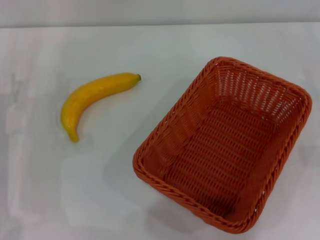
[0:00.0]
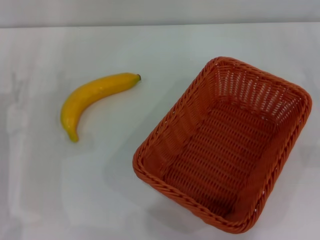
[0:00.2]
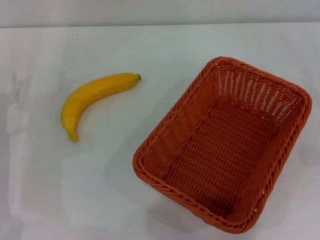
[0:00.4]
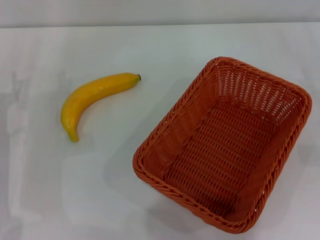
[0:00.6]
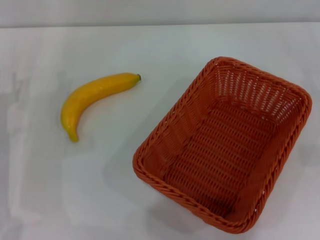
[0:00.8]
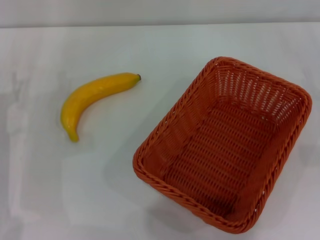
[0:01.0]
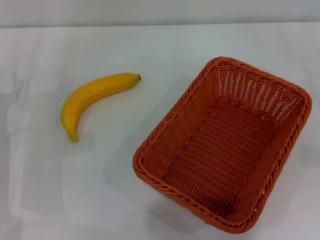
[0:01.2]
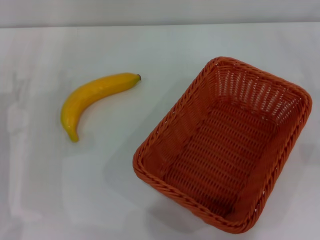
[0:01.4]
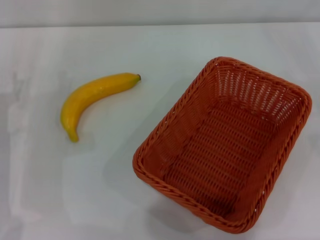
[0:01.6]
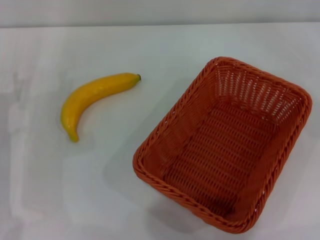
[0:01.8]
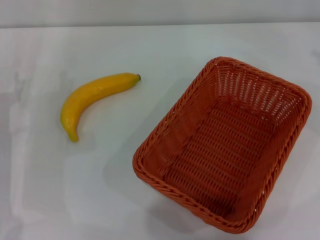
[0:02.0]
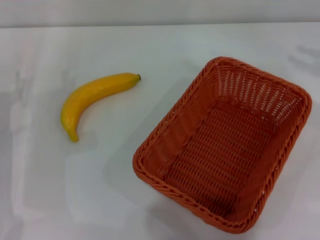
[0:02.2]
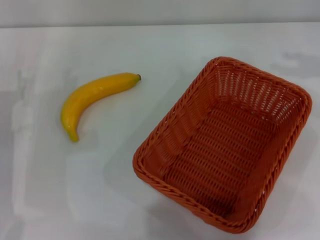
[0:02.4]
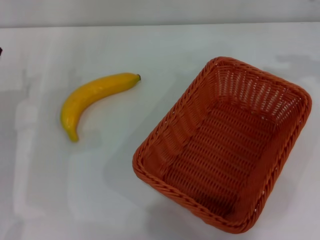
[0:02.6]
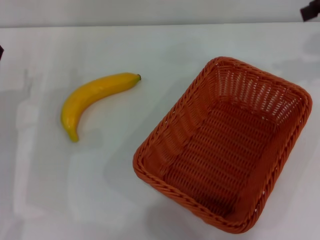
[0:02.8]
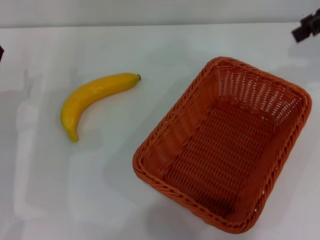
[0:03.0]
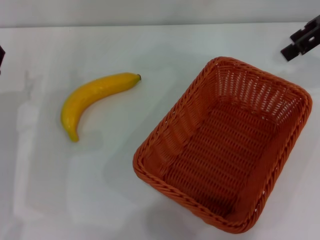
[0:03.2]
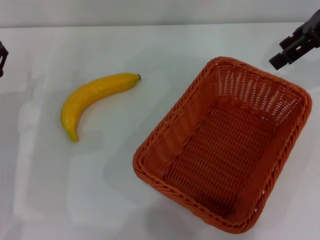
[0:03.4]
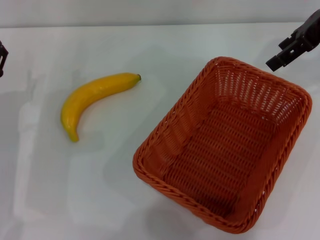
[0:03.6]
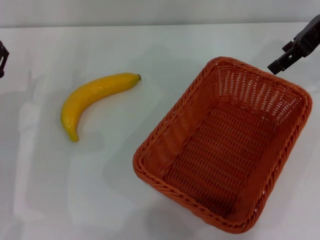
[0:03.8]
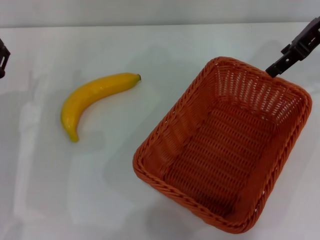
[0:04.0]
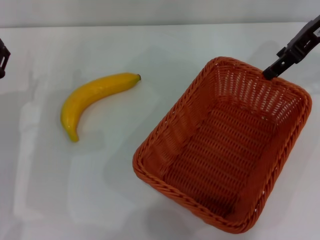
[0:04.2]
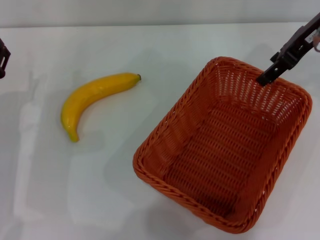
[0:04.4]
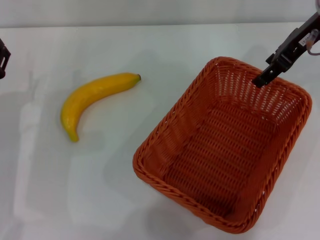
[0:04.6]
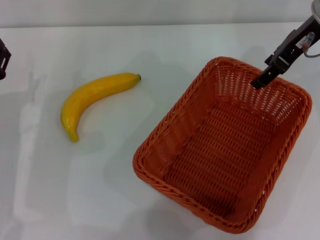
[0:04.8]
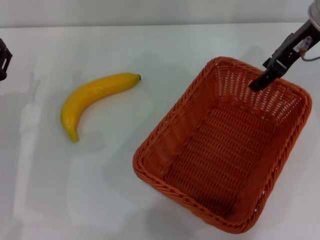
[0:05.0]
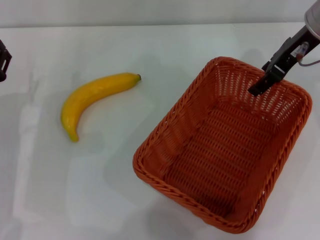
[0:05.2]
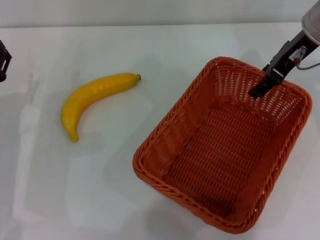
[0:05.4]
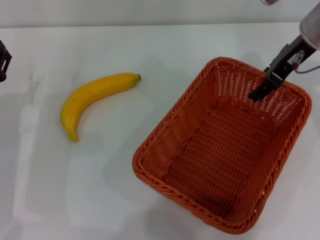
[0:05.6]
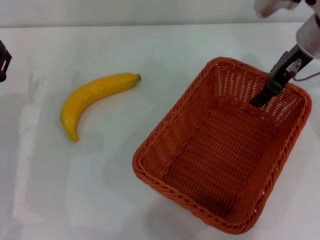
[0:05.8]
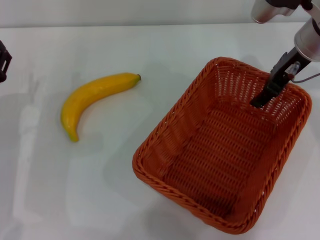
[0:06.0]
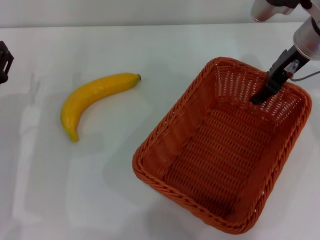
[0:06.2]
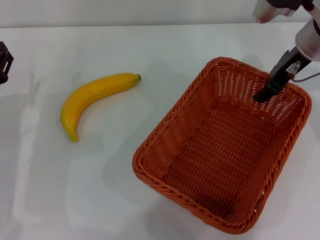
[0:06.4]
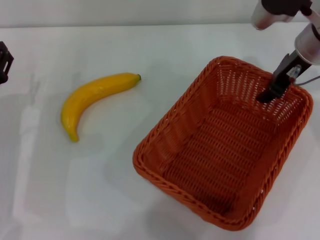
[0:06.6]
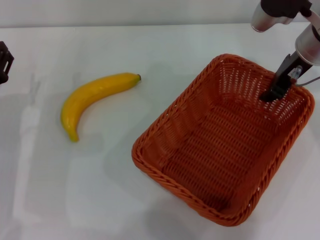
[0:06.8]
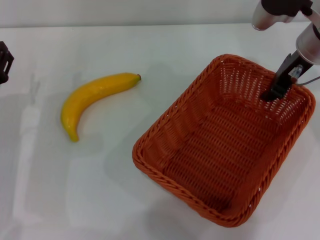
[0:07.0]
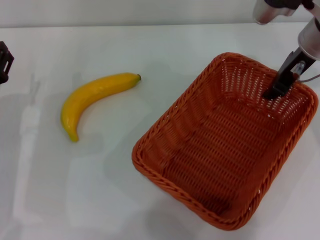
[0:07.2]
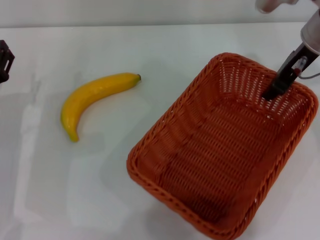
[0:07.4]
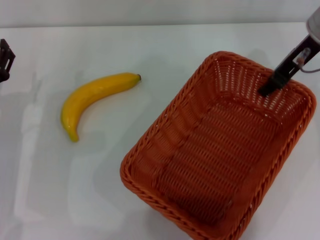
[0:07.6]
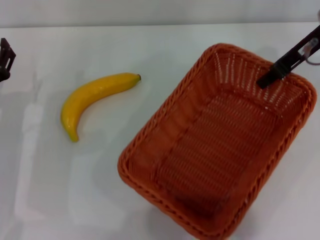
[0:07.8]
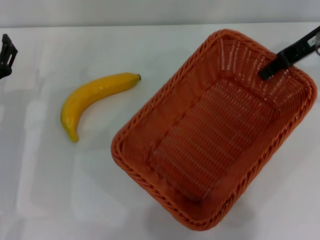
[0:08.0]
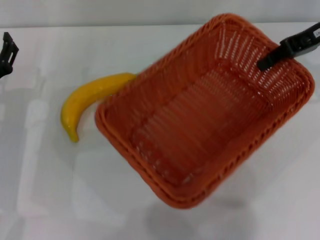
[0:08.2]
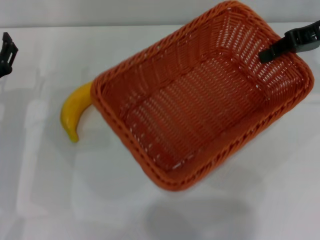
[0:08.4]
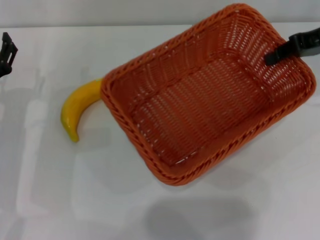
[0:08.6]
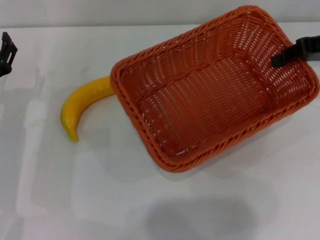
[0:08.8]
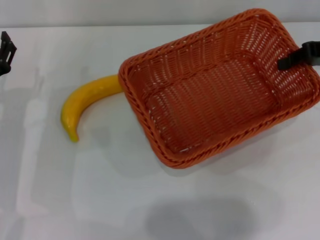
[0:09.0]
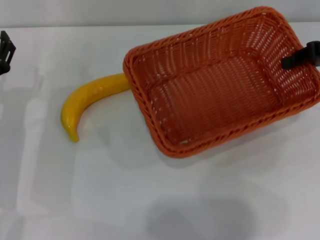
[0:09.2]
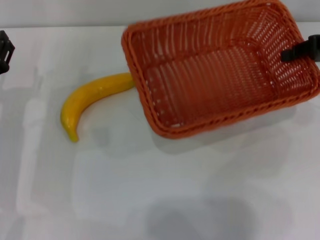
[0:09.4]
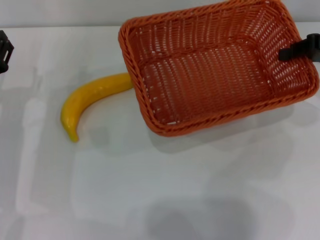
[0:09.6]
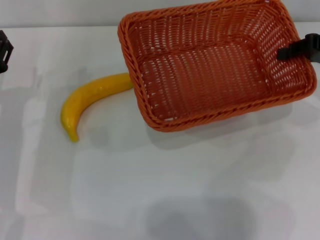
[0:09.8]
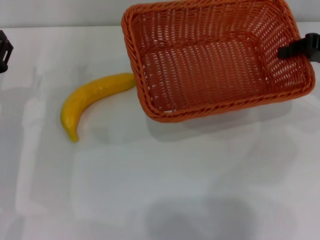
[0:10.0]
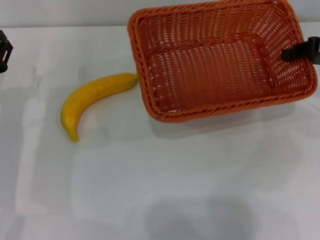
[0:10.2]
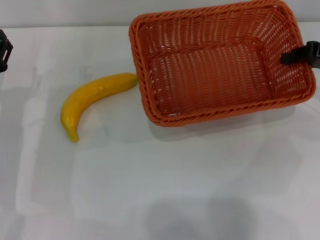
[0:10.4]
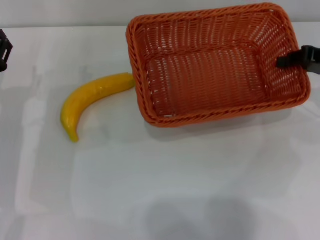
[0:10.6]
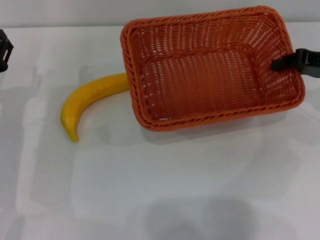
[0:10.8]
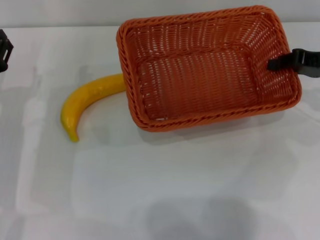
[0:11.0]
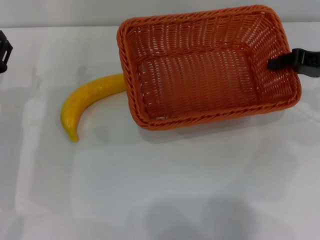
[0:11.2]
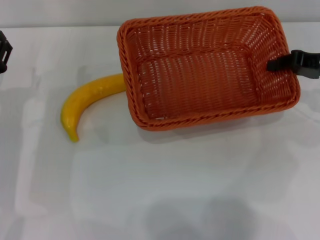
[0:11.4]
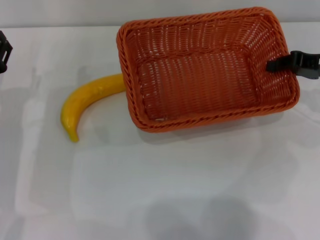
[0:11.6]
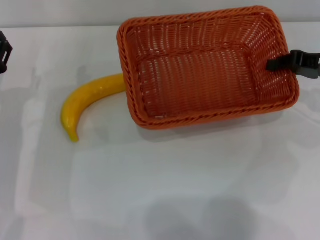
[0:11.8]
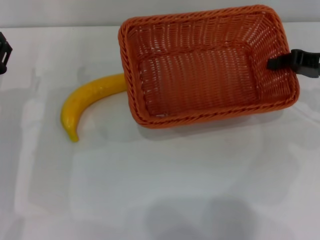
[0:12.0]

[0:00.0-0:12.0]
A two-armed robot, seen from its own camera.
Step, 0:00.0 to 0:07.6: Pick up the light basket with the right gripper.
0:01.6 to 0:03.0: The right gripper moves upward, to the left and forward, roughly 25 cm.
0:03.0 to 0:04.4: The right gripper is displaced to the left and downward by some 10 cm.
0:04.4 to 0:06.0: The right gripper heads downward, covering about 5 cm.
0:06.0 to 0:07.6: The right gripper closes up.
0:07.6 to 0:09.0: The right gripper moves to the right, approximately 10 cm.
0:09.0 to 0:12.0: The grippers make only small movements.

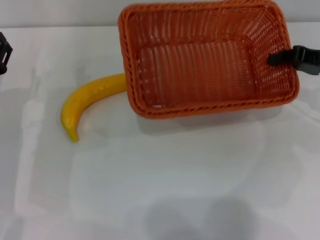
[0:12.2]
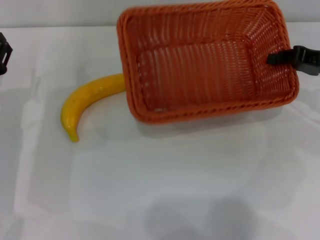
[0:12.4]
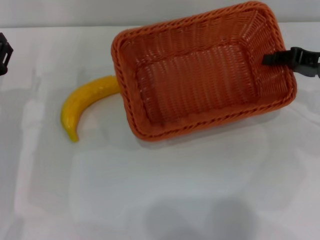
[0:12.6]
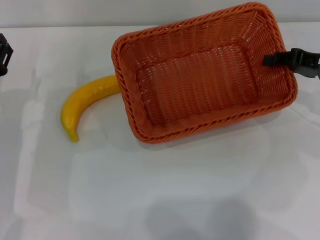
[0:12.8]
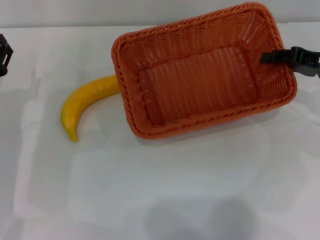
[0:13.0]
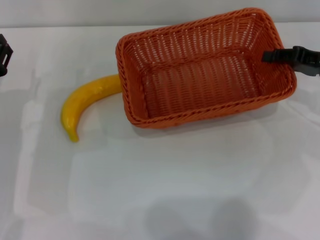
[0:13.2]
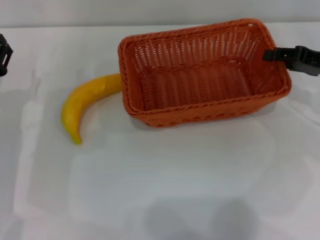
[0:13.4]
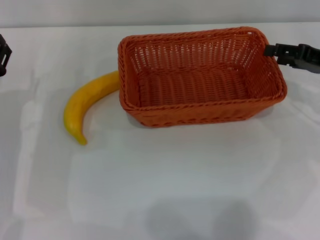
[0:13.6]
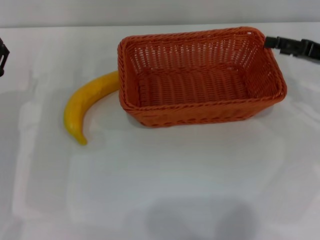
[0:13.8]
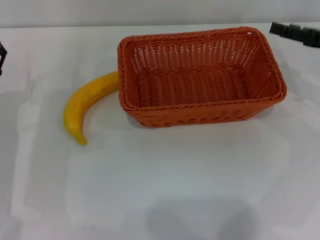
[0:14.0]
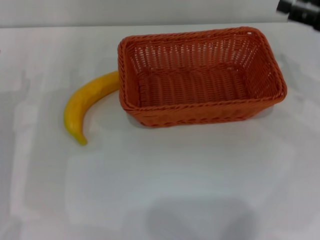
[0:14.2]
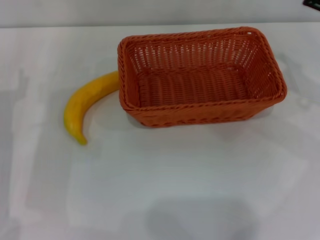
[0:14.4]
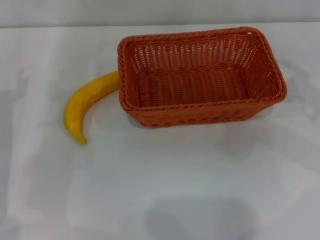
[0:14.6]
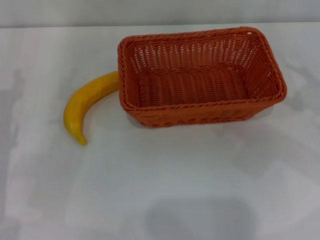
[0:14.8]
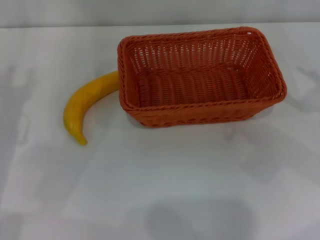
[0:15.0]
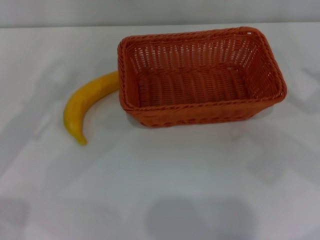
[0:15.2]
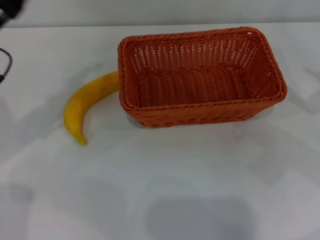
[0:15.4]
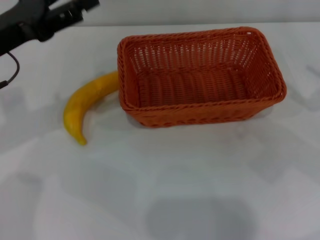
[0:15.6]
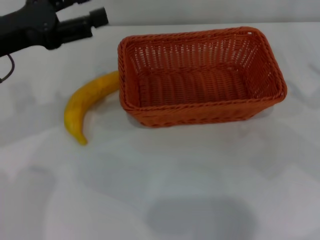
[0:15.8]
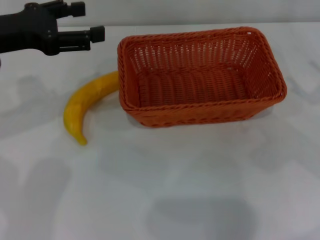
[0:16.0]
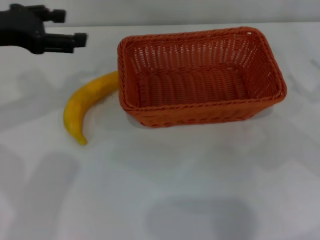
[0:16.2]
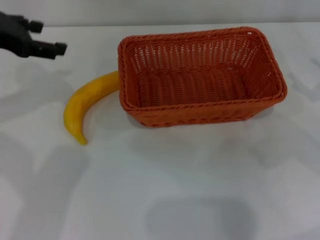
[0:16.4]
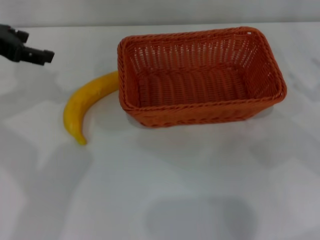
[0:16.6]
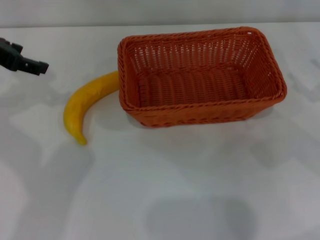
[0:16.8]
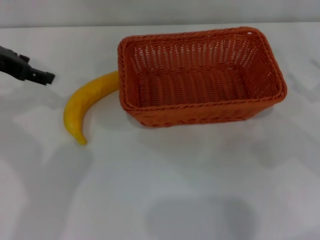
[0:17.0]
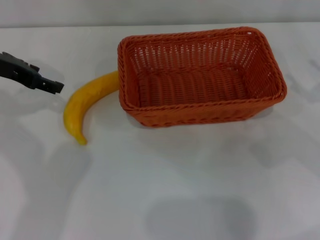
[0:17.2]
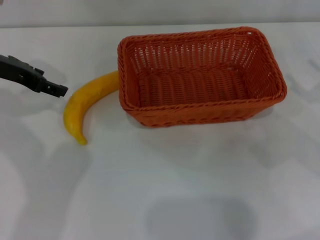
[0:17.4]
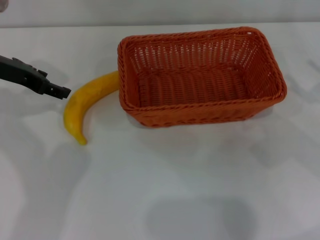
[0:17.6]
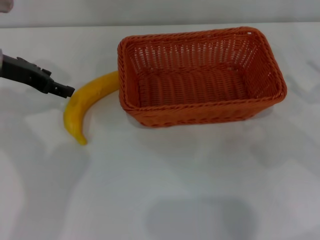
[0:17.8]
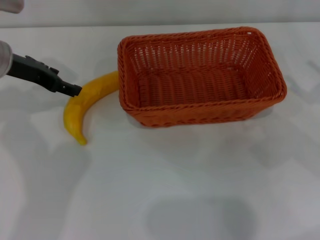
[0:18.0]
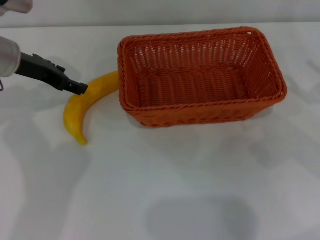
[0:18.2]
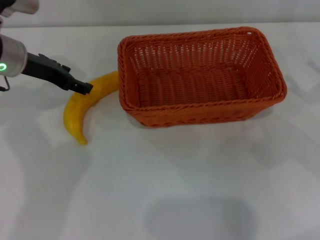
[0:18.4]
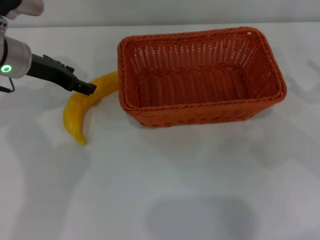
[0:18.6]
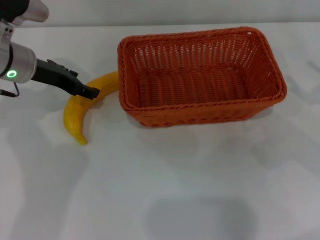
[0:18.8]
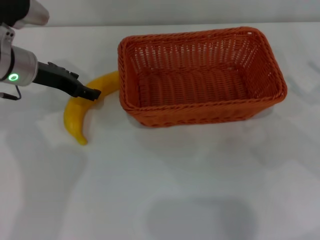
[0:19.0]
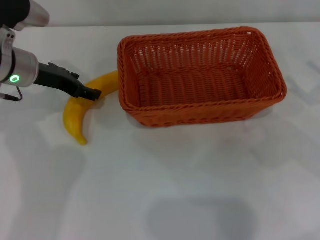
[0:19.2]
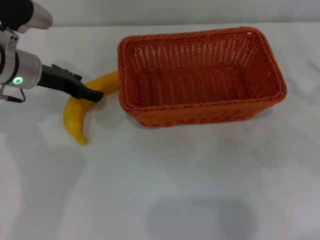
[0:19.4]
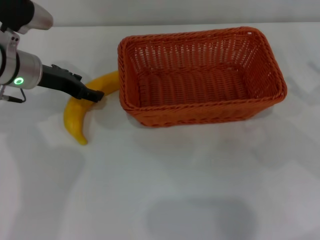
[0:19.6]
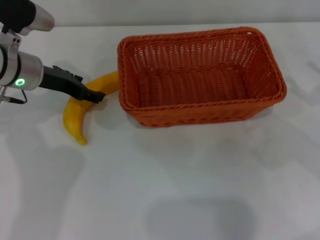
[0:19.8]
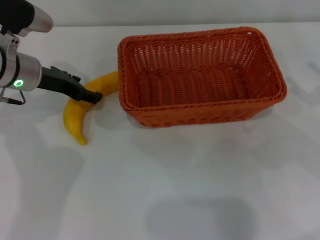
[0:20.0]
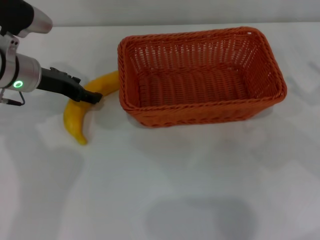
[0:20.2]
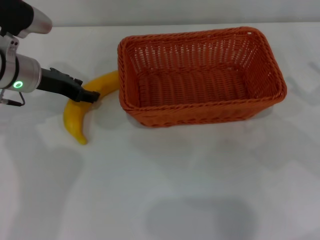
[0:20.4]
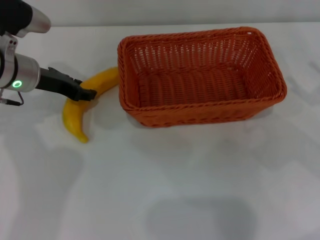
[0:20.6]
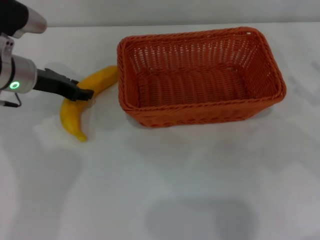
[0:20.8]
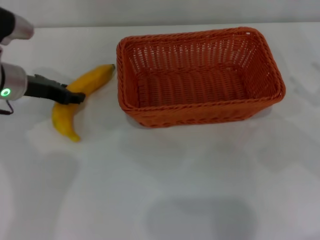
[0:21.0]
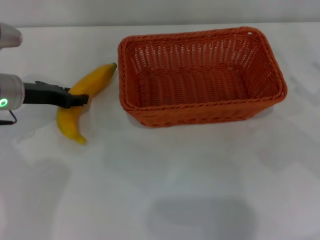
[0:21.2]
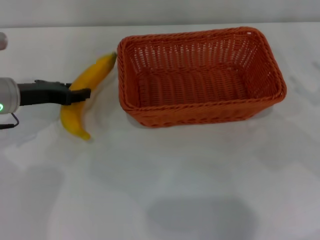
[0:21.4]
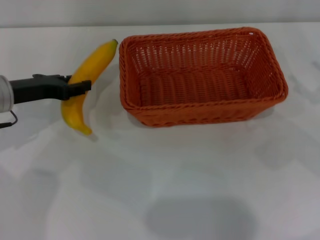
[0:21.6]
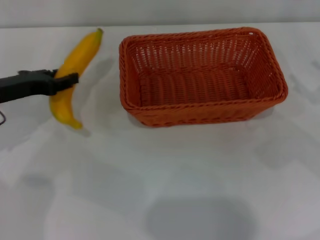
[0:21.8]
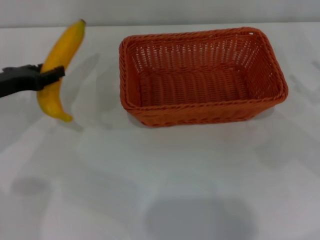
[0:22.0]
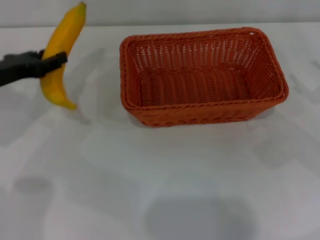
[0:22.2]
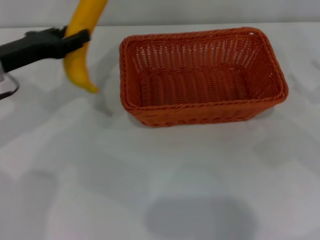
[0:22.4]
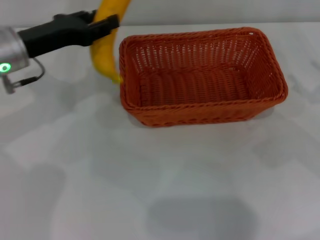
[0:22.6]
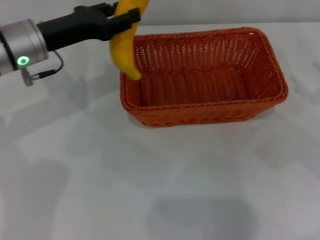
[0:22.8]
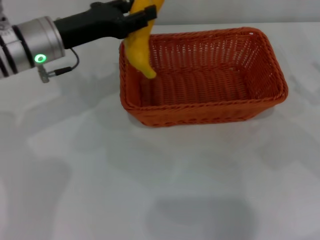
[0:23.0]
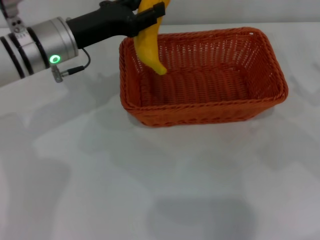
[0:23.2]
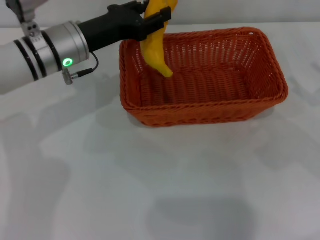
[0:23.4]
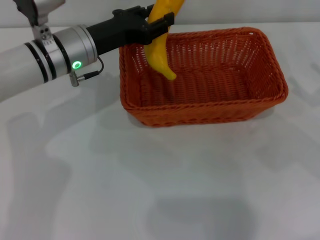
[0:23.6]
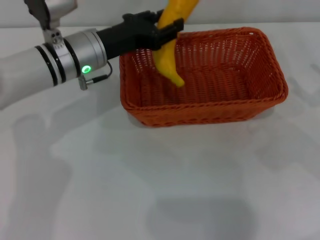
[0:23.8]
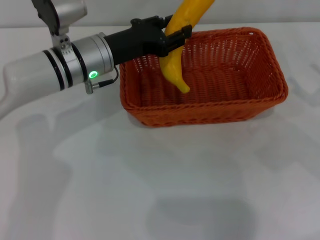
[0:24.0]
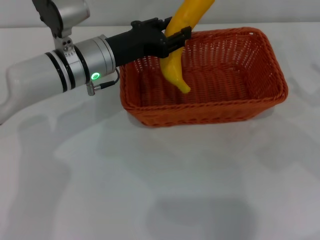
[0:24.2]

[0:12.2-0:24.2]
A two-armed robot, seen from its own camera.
Step, 0:14.0 to 0:21.4: Pick up the banana with the left gripper.
0:12.2 to 0:13.8: The right gripper opens up.
0:13.8 to 0:15.2: The right gripper moves backward, some 10 cm. Meanwhile the left gripper heads upward, covering roughly 10 cm.
0:15.2 to 0:16.6: The left gripper heads upward and forward, covering about 10 cm.
0:16.6 to 0:18.2: The left gripper travels downward by some 10 cm.
0:18.2 to 0:19.8: The grippers stay close to where they were, moving slightly.
0:19.8 to 0:21.2: The left gripper closes its fingers.
0:21.2 to 0:22.6: The left gripper goes about 5 cm upward.
0:22.6 to 0:24.2: The left gripper shifts about 10 cm to the right.
